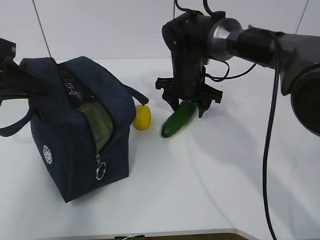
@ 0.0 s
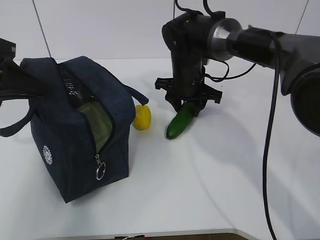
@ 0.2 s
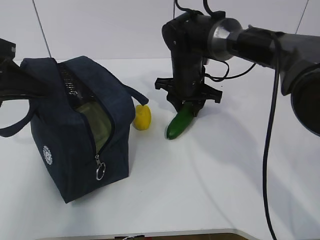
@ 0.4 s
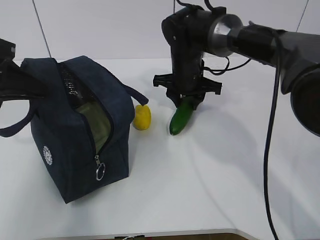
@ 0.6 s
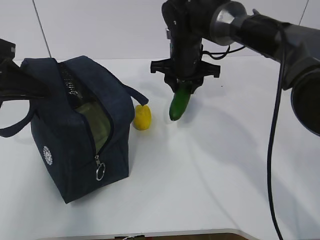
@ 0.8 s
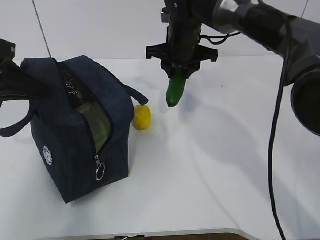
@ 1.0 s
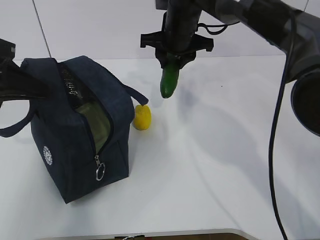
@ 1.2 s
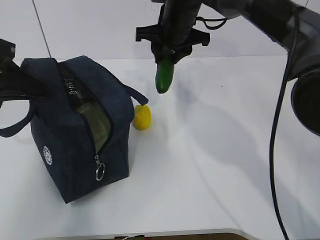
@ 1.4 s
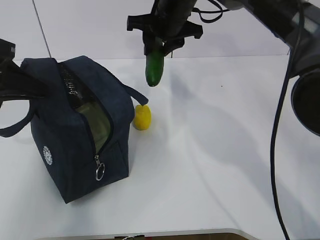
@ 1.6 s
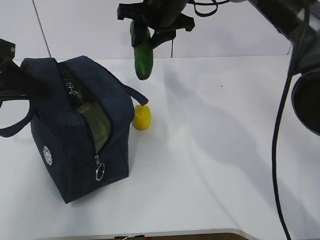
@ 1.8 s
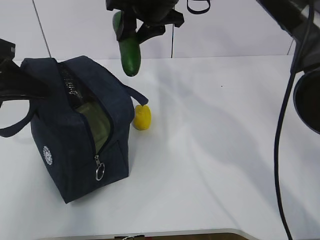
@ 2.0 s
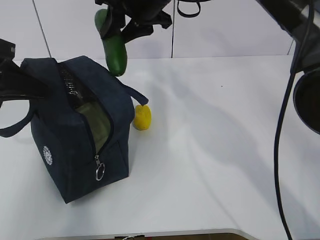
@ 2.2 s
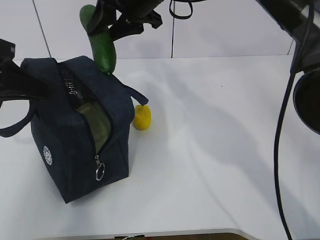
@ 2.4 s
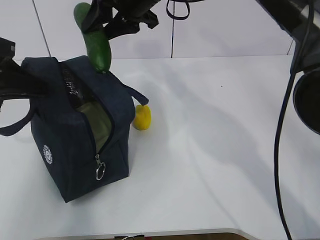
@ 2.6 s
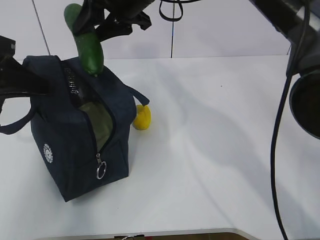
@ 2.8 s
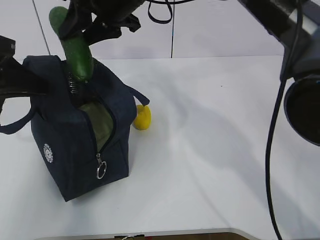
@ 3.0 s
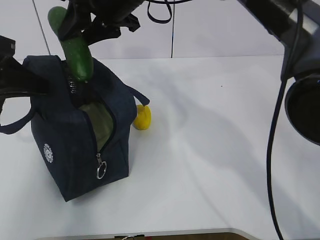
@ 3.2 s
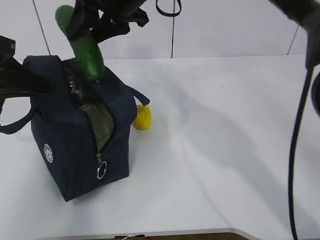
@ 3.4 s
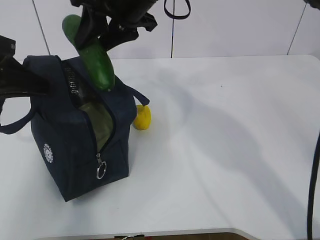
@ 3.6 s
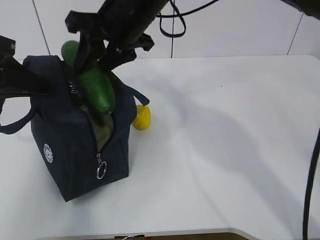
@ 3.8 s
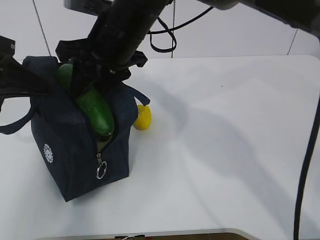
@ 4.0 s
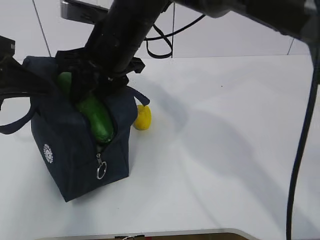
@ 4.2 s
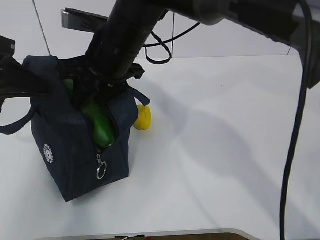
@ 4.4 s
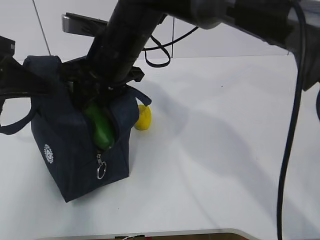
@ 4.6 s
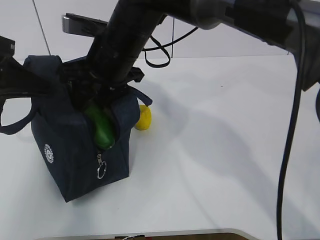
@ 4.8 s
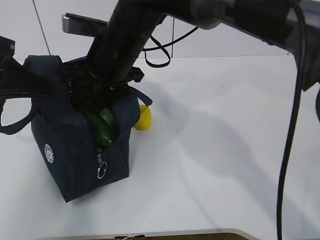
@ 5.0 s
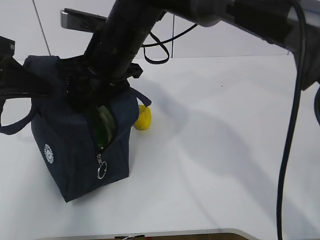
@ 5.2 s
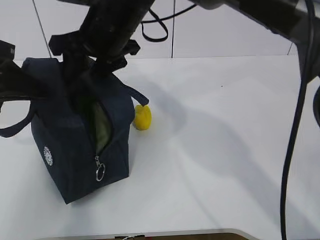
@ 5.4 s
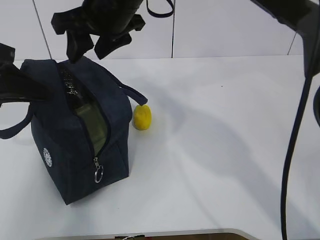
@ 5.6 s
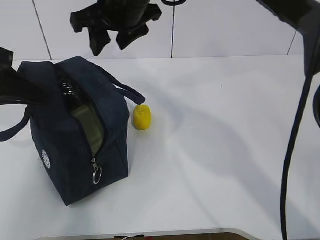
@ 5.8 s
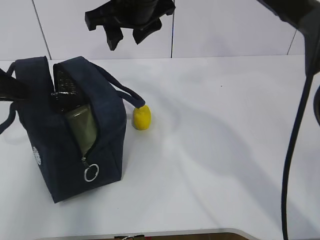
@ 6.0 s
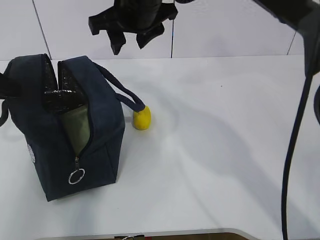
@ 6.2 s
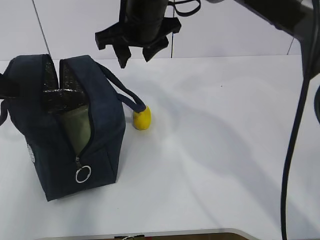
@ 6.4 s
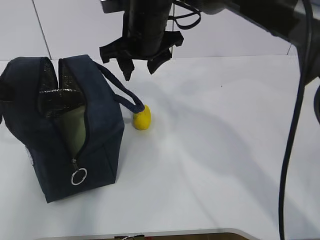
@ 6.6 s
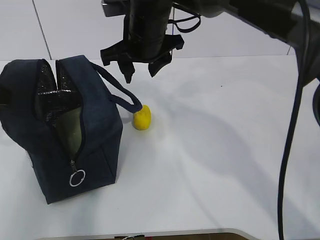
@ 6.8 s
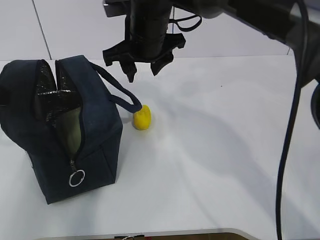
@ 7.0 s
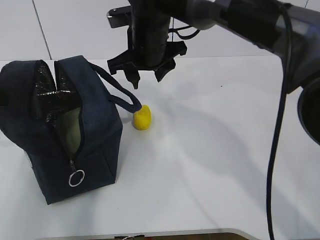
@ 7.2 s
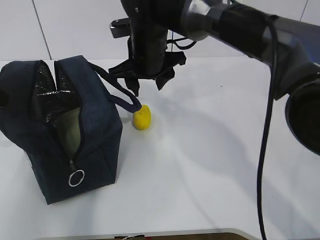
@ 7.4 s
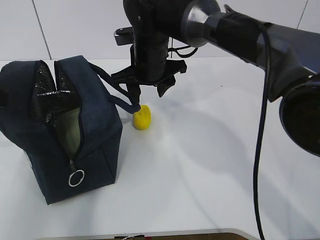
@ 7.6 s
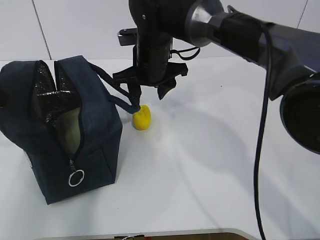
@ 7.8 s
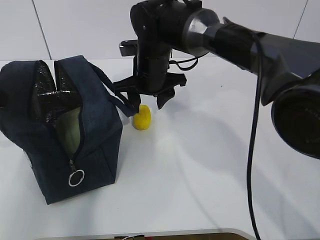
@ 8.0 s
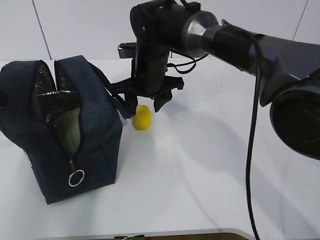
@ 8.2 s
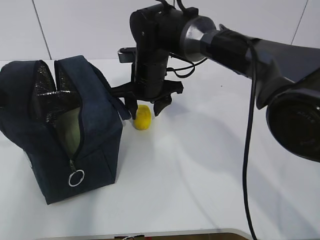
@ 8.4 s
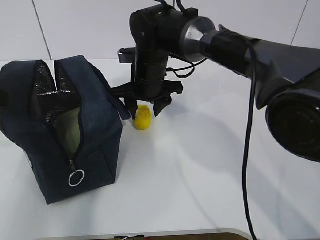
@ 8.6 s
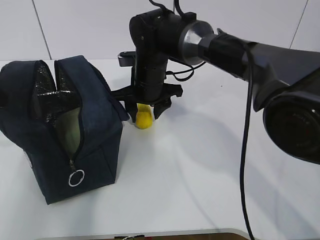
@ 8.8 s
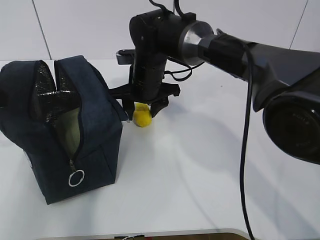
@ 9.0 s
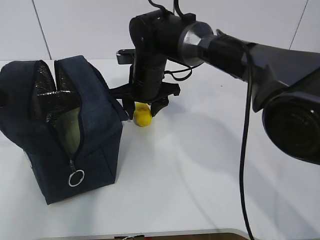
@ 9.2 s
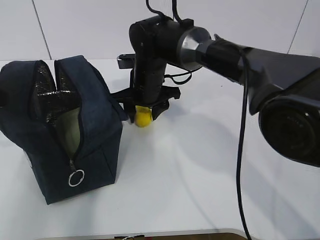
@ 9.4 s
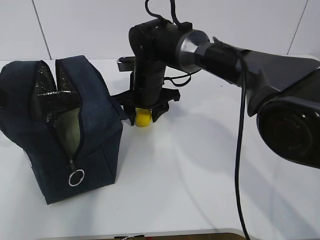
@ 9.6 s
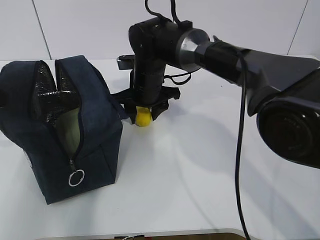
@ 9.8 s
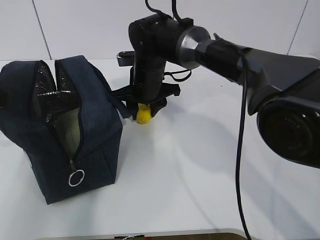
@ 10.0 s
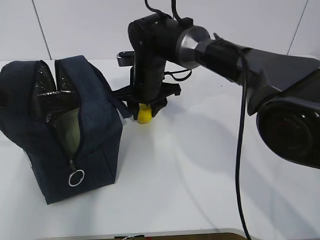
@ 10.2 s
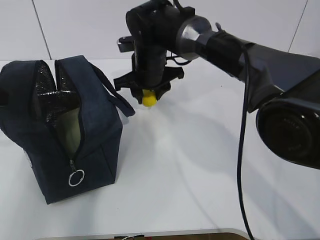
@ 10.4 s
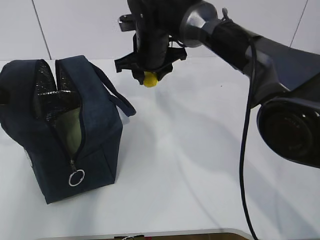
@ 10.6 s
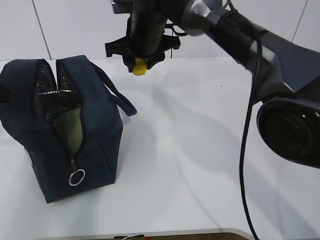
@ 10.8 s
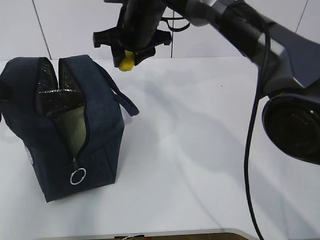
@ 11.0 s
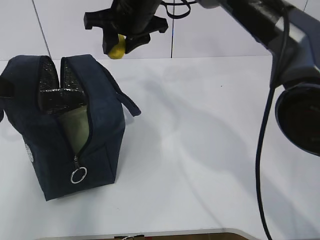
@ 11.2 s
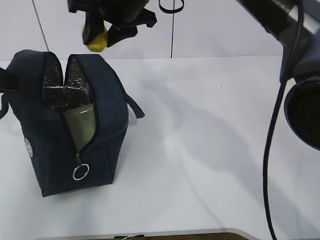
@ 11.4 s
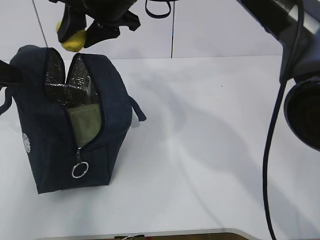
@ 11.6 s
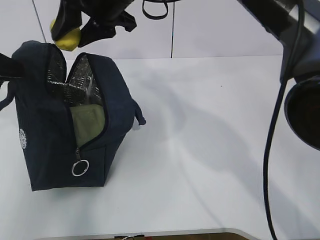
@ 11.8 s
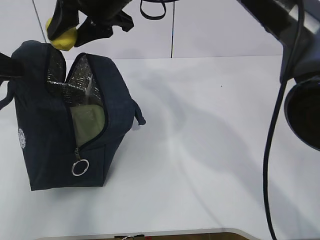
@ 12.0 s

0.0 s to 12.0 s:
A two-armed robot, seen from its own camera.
Step, 0.8 to 4.2 s: Grab the lemon with your right hand.
Step, 4.4 to 7.4 s: Secure the lunch bag with your left hand.
Step, 7.6 to 9.2 s: Grab the lunch bag with your right hand.
0.0 to 1.6 s: The right gripper heads upward, covering some 10 cm, and closes its fingers.
1.6 to 3.0 s: The right gripper shifts some 5 cm to the left.
3.0 to 4.4 s: The right gripper goes approximately 5 cm downward.
4.4 to 6.0 s: The right gripper is displaced upward by roughly 5 cm.
6.0 to 7.6 s: The right gripper heads downward, covering roughly 10 cm.
7.6 to 10.4 s: There are only small adjustments of the grippers.
10.4 to 12.0 s: The right gripper is displaced upward by approximately 15 cm.

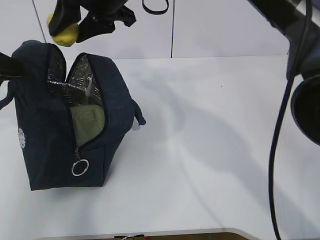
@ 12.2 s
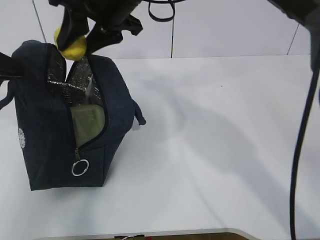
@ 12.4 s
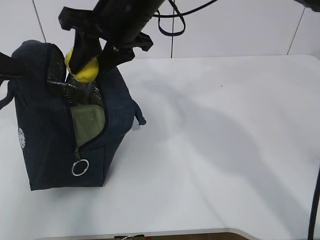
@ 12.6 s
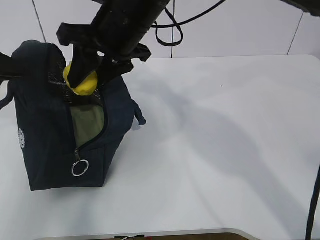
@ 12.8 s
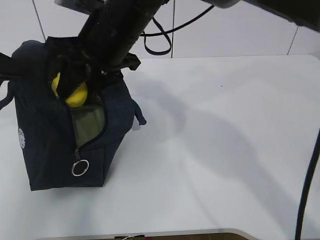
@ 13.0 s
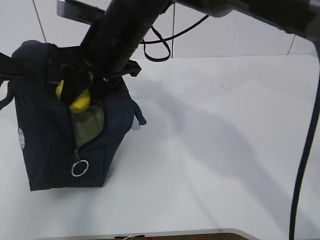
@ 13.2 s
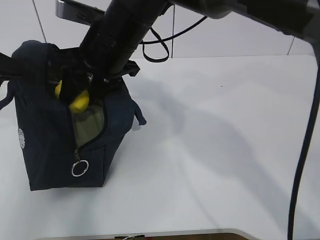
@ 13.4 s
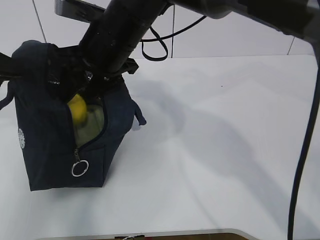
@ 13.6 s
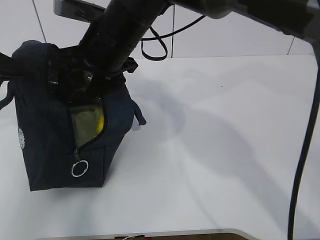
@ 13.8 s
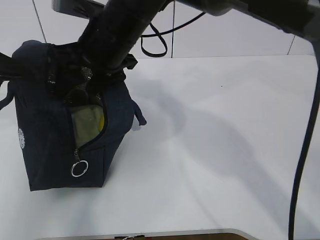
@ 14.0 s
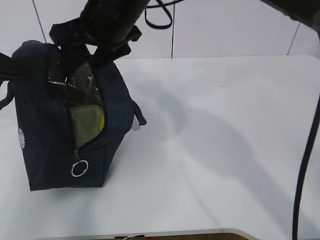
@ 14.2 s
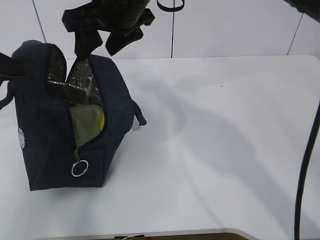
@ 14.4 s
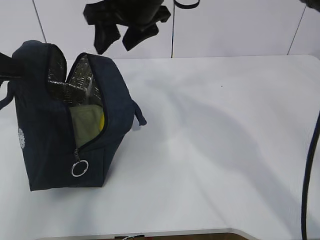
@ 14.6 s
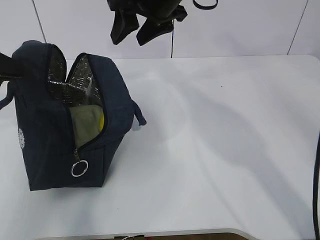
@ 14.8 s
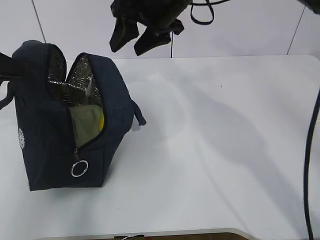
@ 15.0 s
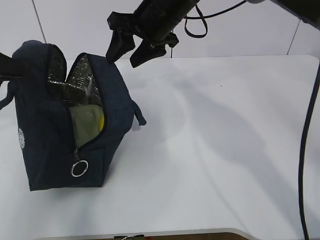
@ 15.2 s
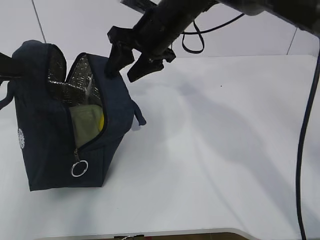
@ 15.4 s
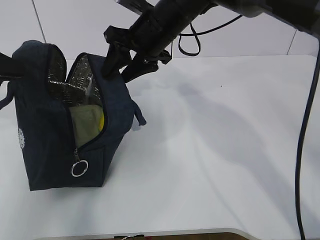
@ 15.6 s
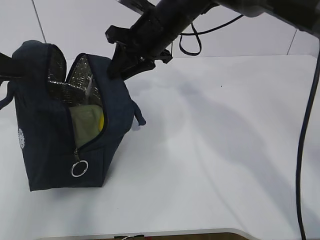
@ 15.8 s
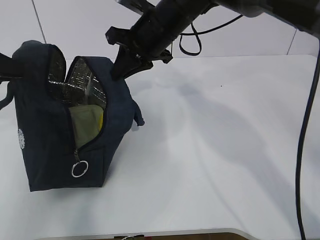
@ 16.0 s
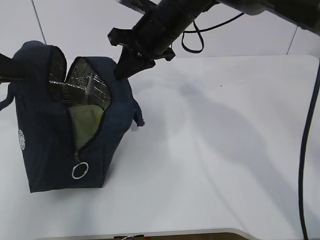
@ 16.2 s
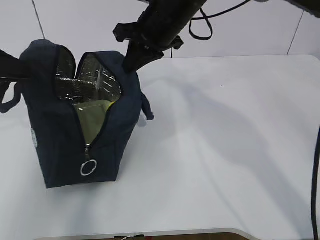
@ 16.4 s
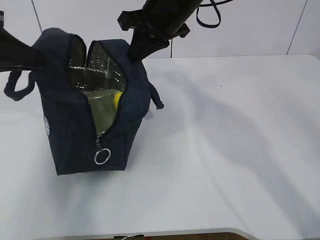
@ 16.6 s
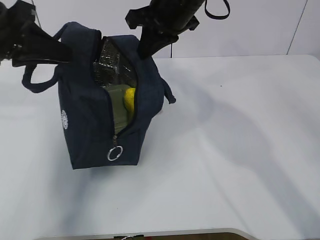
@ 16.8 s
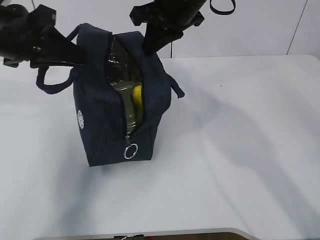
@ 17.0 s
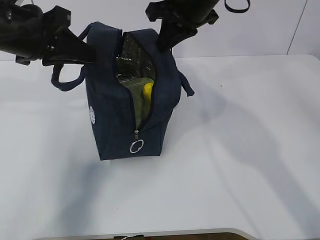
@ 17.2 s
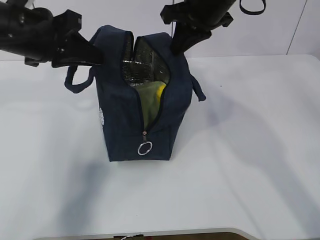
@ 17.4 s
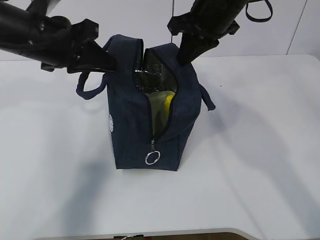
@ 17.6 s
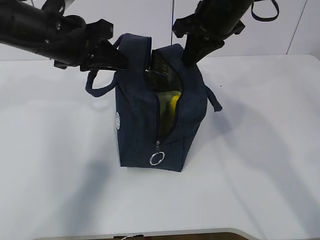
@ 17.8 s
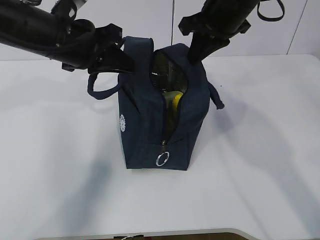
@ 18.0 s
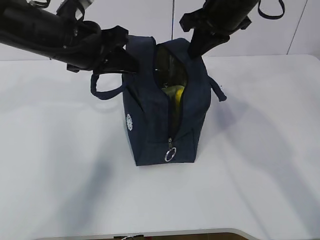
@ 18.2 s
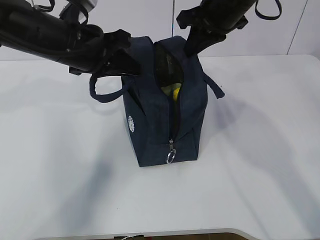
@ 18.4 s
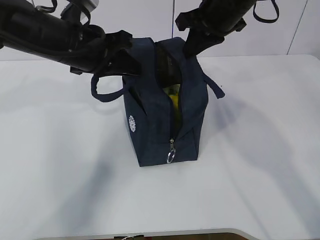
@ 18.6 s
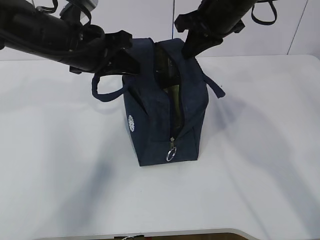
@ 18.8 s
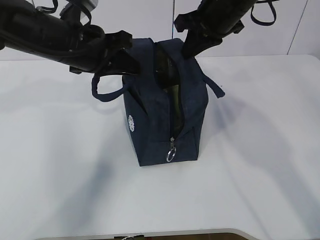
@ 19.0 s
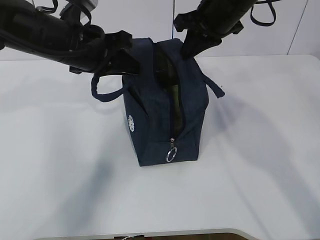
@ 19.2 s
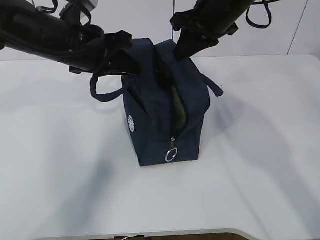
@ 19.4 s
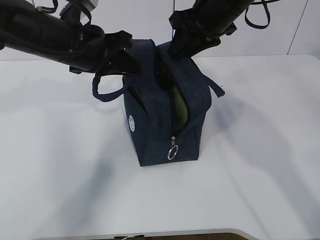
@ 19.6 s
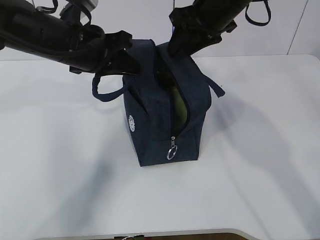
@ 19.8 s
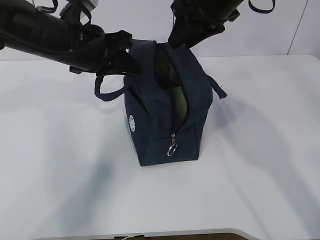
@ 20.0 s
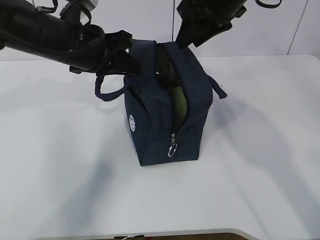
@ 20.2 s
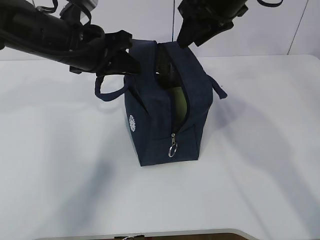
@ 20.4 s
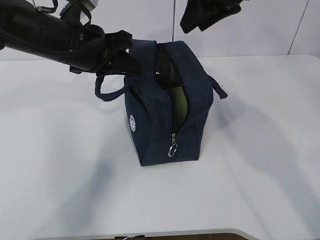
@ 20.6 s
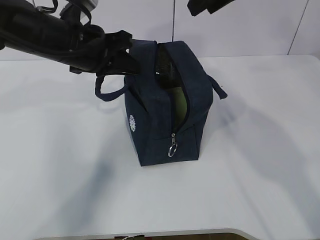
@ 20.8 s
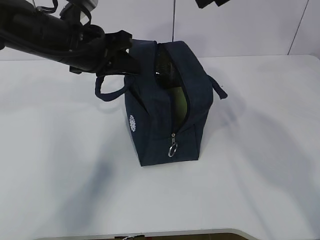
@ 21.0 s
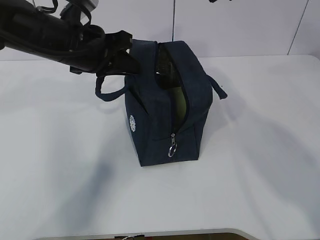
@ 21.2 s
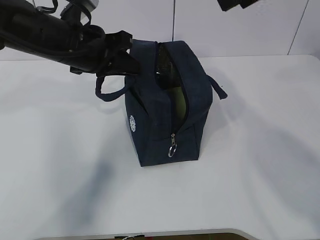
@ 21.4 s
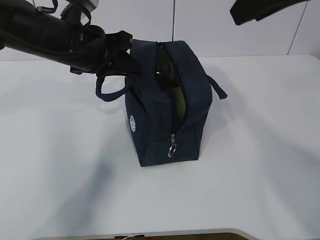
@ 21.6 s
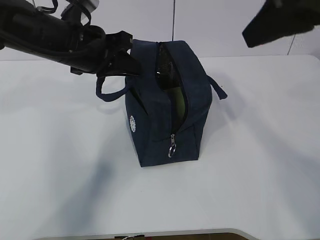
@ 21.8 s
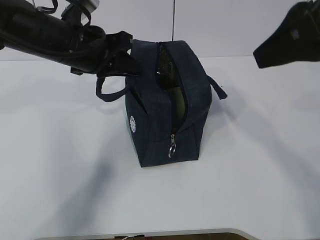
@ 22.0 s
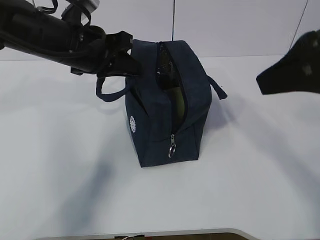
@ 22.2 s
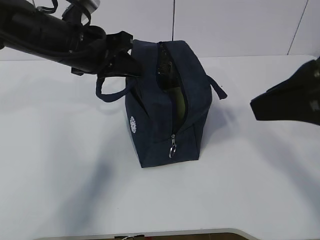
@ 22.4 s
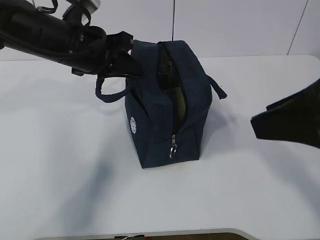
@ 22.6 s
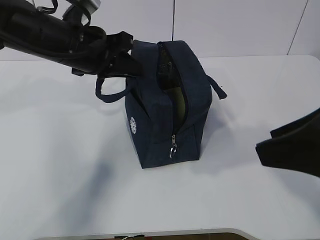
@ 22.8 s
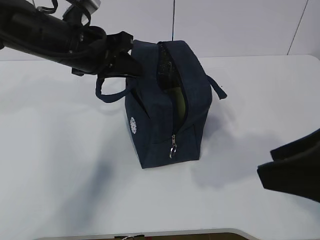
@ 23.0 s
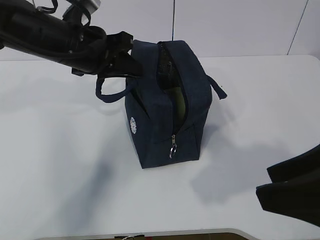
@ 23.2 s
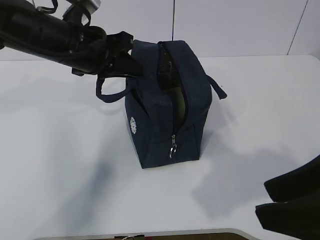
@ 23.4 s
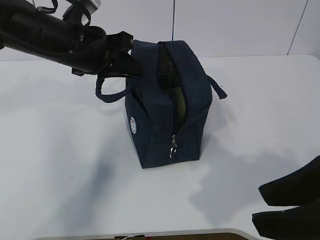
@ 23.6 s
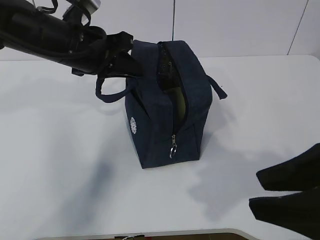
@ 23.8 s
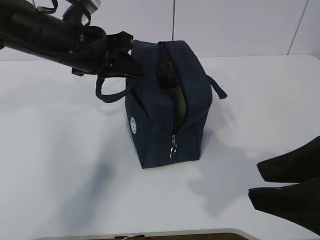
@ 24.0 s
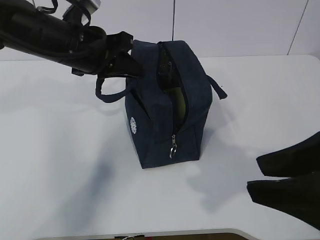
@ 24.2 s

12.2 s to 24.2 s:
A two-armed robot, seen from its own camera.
12.2 to 13.8 s: The right gripper moves downward, about 5 cm.
13.8 to 15.2 s: The right gripper is displaced to the right and forward by some 10 cm.
15.2 to 16.6 s: The right gripper closes up.
16.6 to 18.2 s: The left gripper heads to the right and forward, covering roughly 15 cm, while the right gripper shifts approximately 10 cm to the right.
18.2 to 19.8 s: The right gripper opens up.
19.8 to 21.2 s: The right gripper moves upward and backward, approximately 15 cm.
21.2 to 22.6 s: The right gripper shifts approximately 20 cm backward and downward.
22.6 to 24.2 s: The right gripper goes about 5 cm downward.
